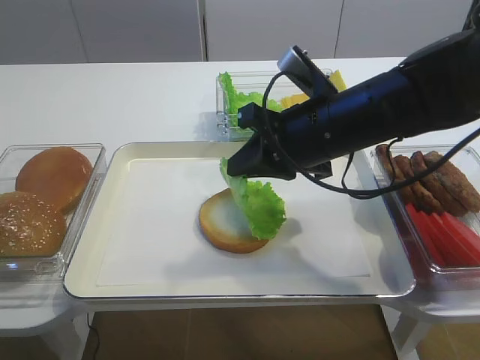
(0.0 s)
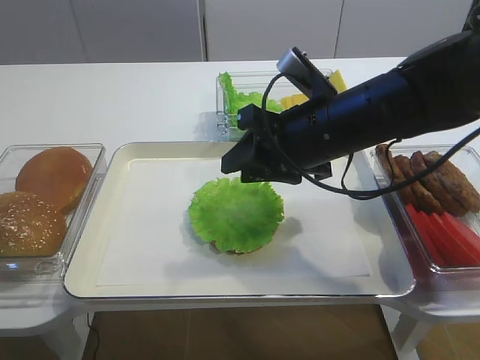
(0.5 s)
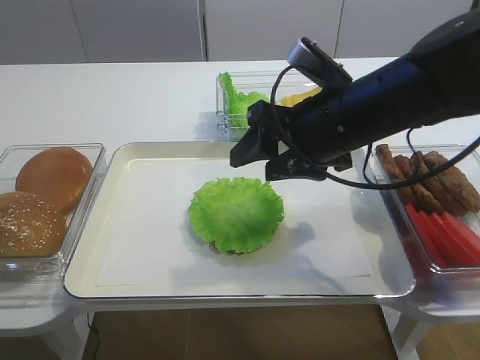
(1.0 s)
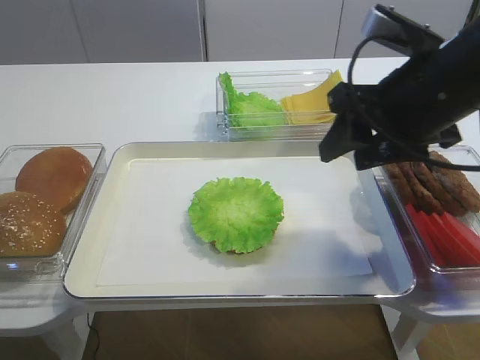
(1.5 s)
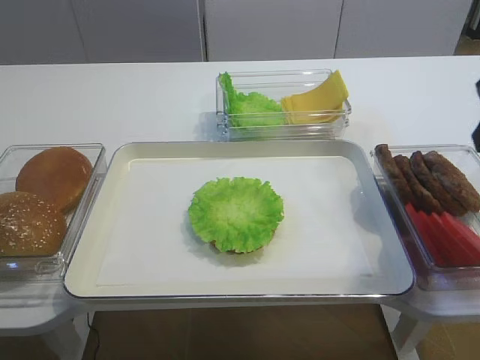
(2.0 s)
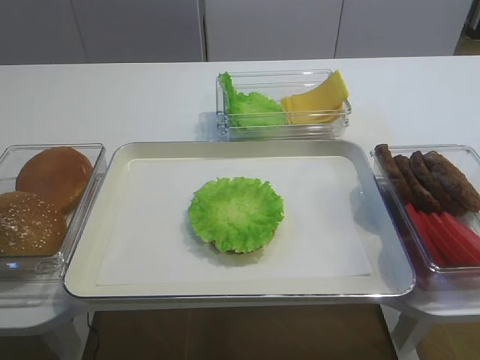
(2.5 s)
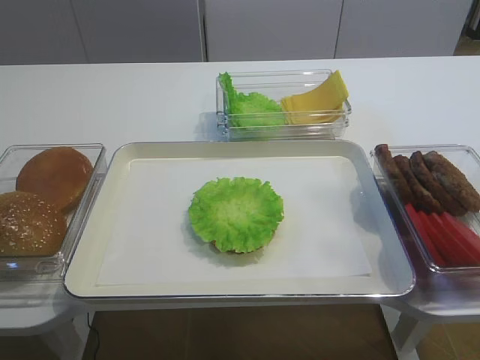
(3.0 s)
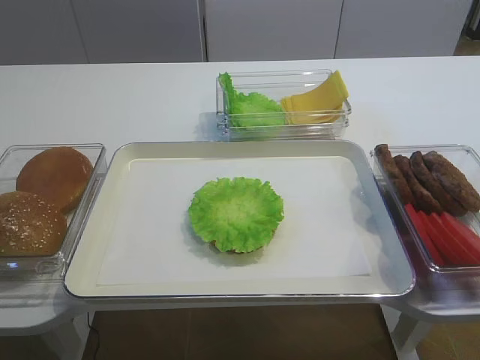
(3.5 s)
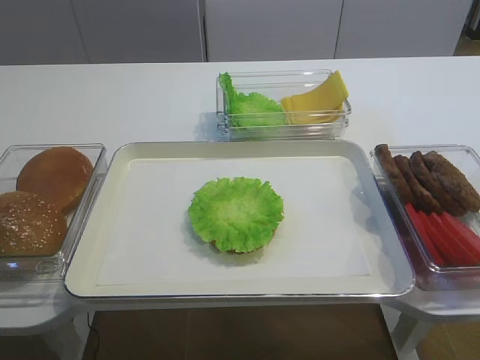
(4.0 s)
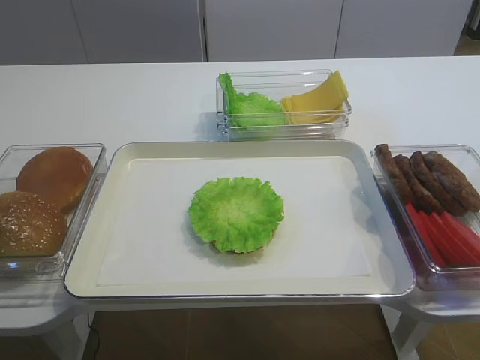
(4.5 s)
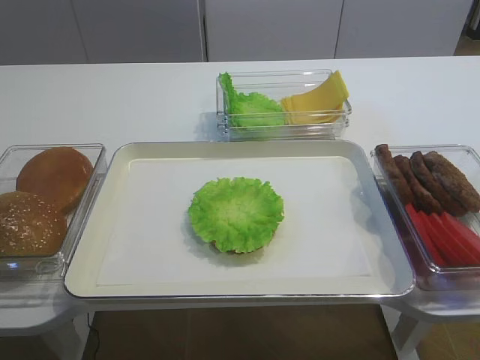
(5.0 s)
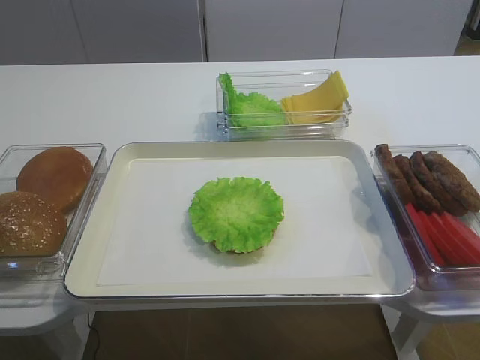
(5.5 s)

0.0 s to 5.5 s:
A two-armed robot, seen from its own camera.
0.0 to 2.0 s: The right gripper shifts roughly 20 cm to the right and upward, and opens.
2.0 to 3.5 s: The right gripper goes about 25 cm backward.

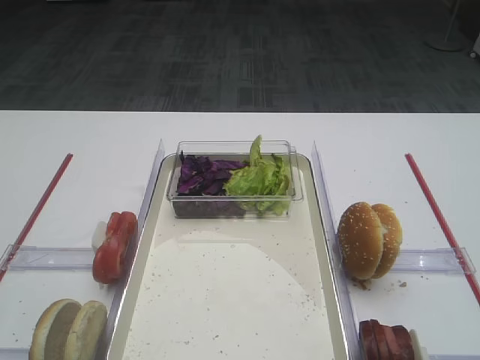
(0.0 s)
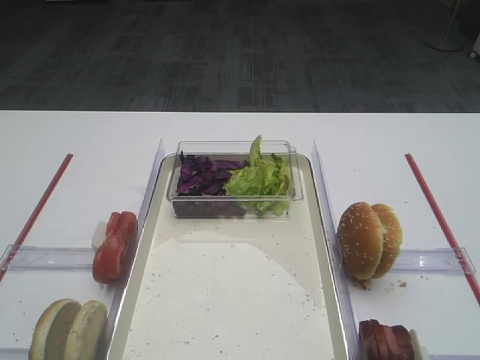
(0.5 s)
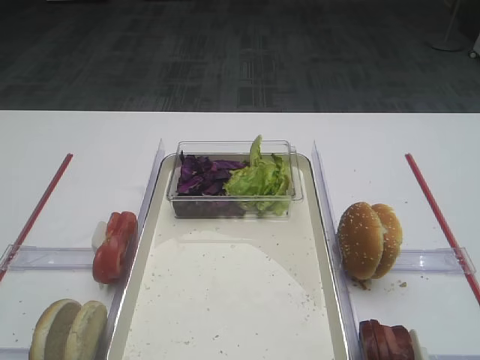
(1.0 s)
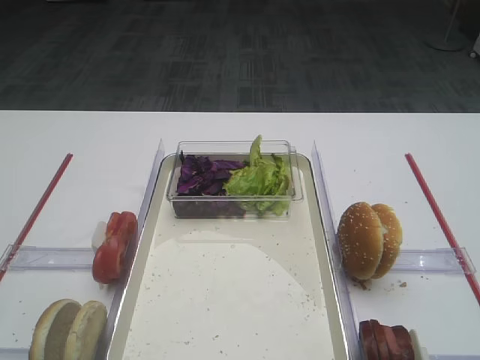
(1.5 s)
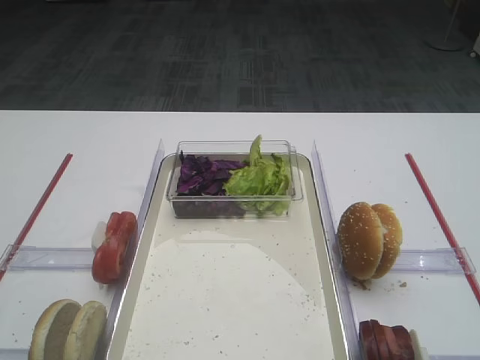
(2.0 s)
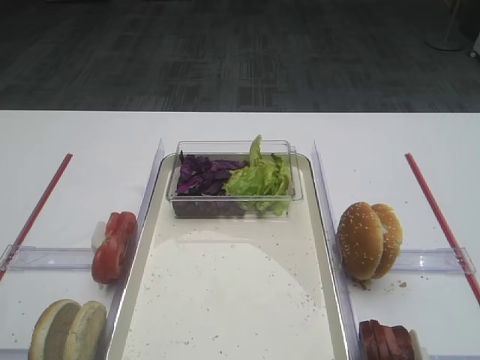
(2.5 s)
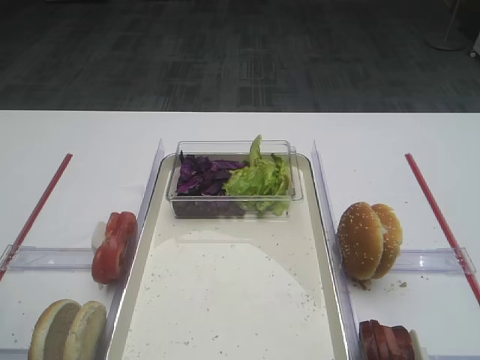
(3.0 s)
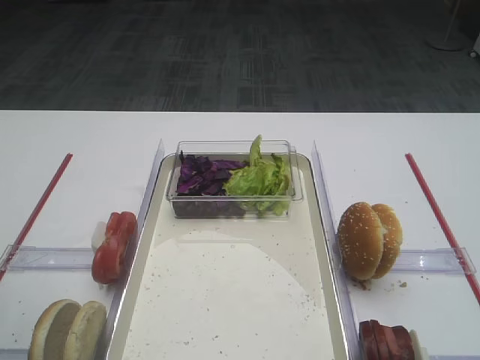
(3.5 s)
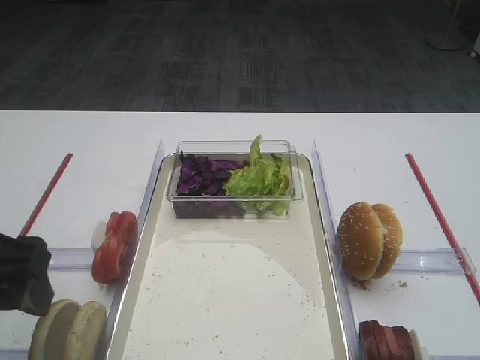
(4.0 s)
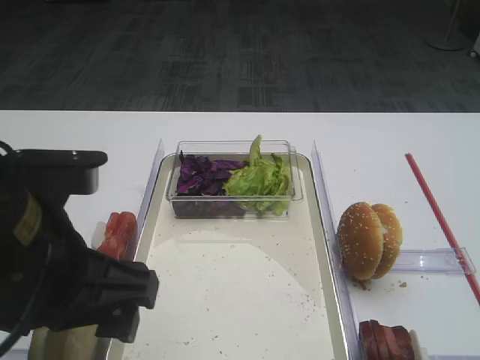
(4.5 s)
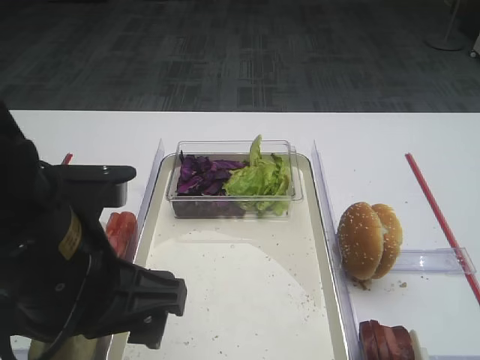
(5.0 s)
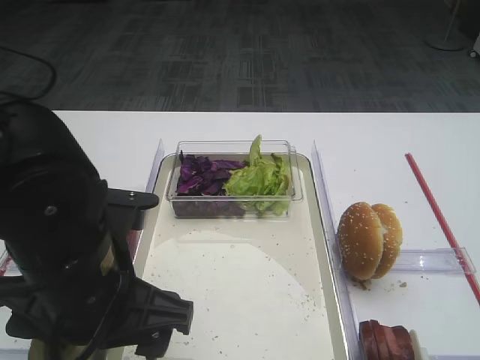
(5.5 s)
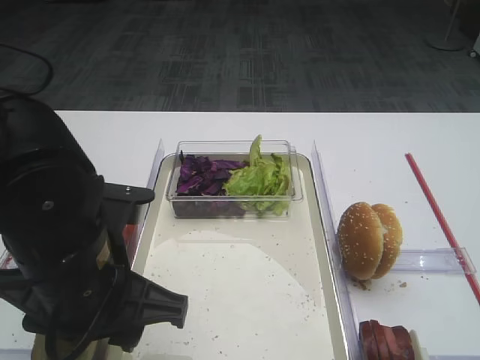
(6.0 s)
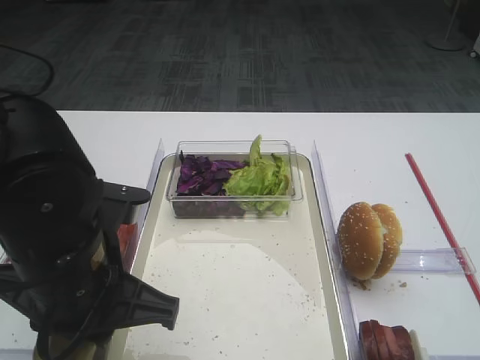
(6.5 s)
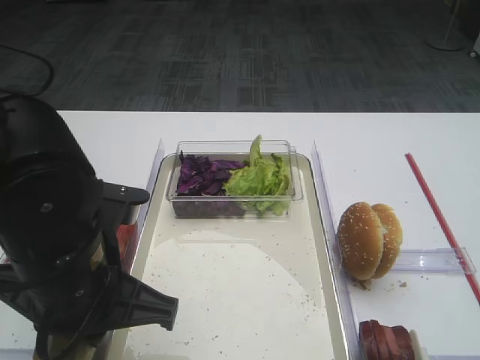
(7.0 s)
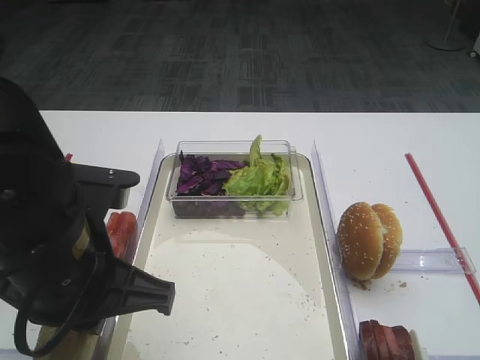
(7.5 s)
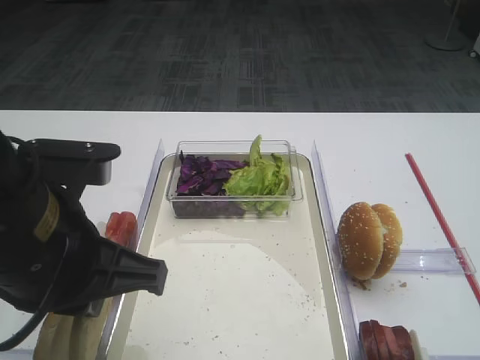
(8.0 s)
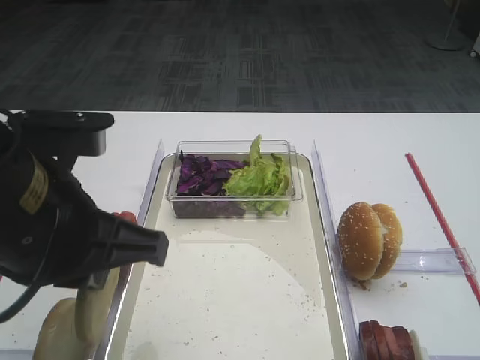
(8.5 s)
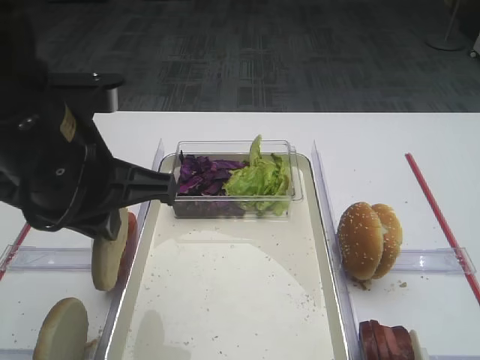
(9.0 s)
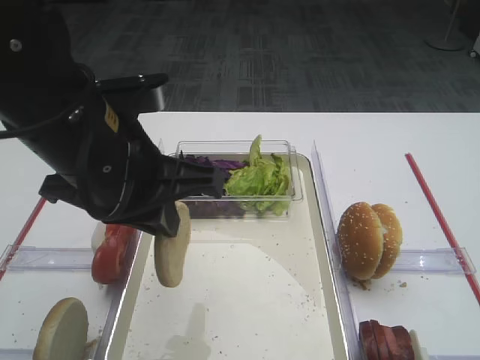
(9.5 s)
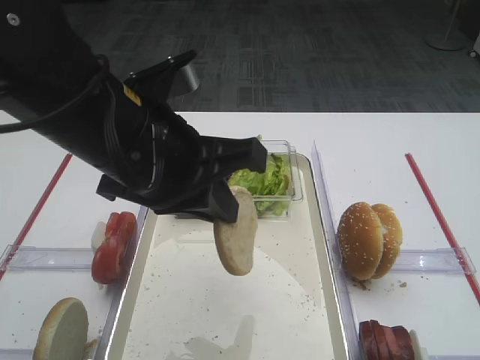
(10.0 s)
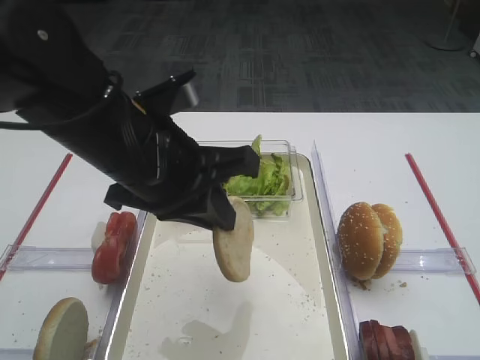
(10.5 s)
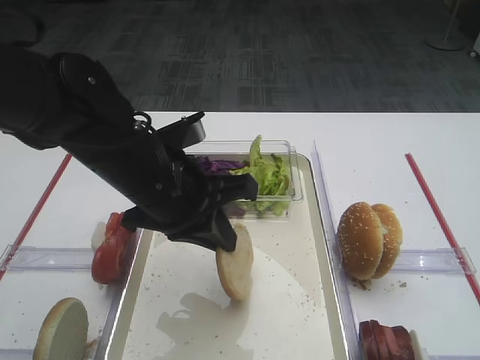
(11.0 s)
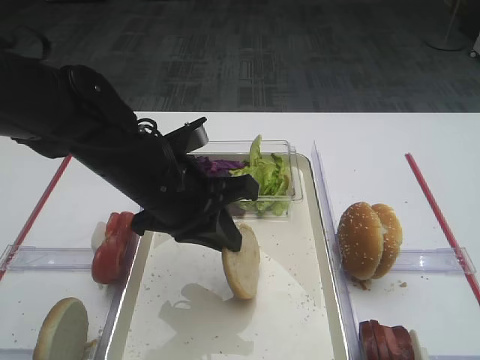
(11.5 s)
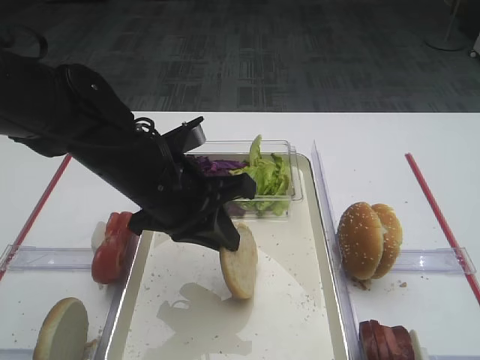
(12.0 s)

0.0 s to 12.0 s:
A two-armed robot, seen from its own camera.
Step, 0.0 to 8.5 s: Pick up the bread slice with the left gripper.
2.0 to 4.0 s: The left gripper heads forward and to the right, covering about 10 cm.
4.0 to 6.0 s: The left gripper goes approximately 10 cm to the right and downward, and closes.
6.0 to 8.0 s: The left gripper moves approximately 5 cm, and closes up.
8.0 to 10.0 s: The left gripper is displaced forward and to the right by some 10 cm.
10.0 to 12.0 s: The left gripper travels downward and forward by approximately 10 cm.

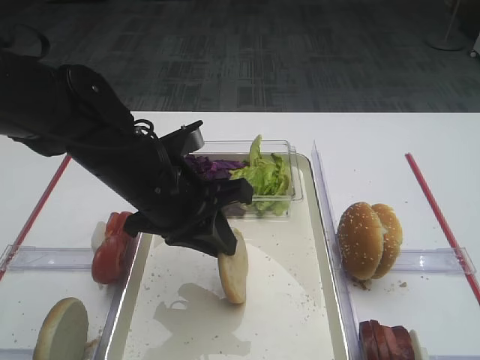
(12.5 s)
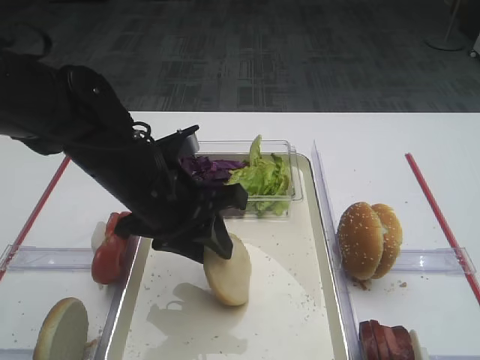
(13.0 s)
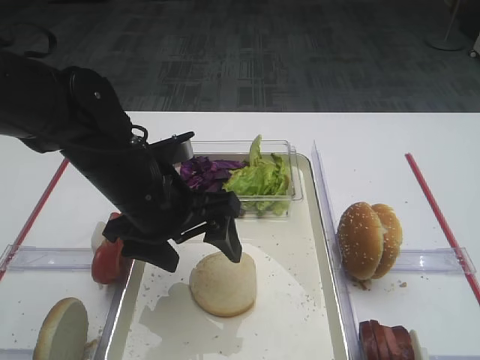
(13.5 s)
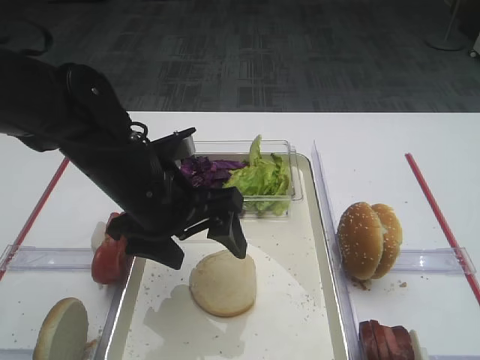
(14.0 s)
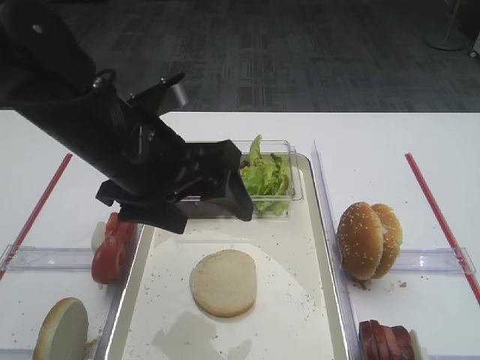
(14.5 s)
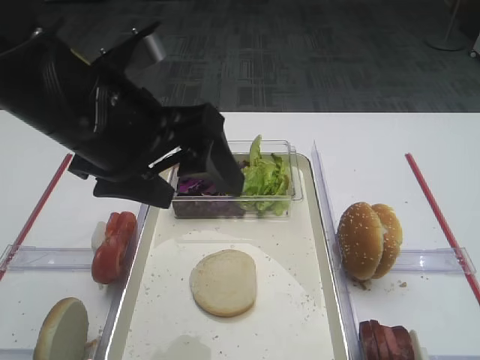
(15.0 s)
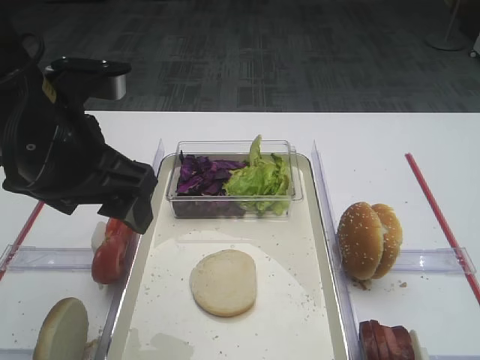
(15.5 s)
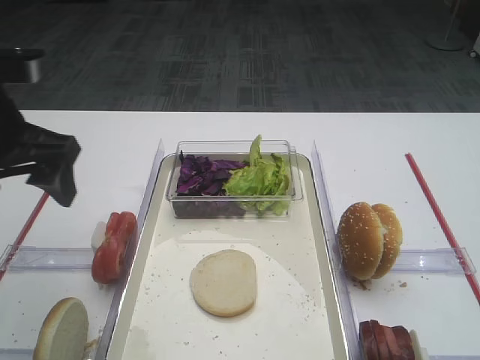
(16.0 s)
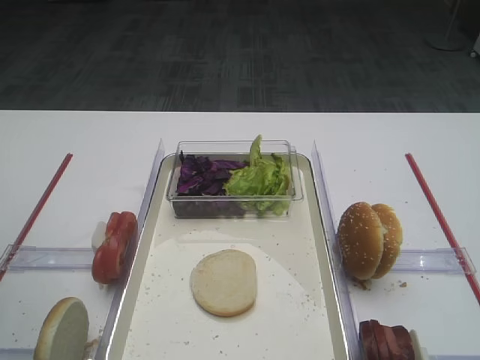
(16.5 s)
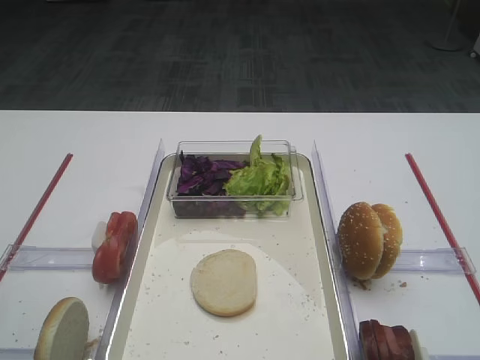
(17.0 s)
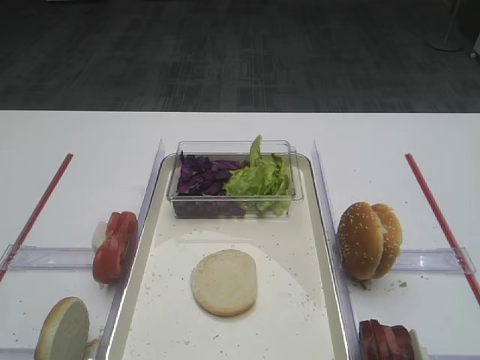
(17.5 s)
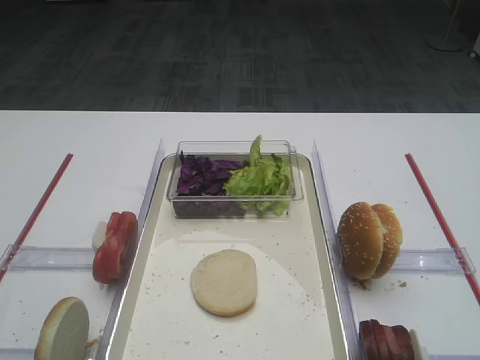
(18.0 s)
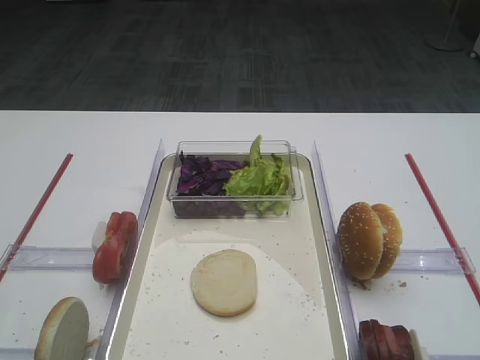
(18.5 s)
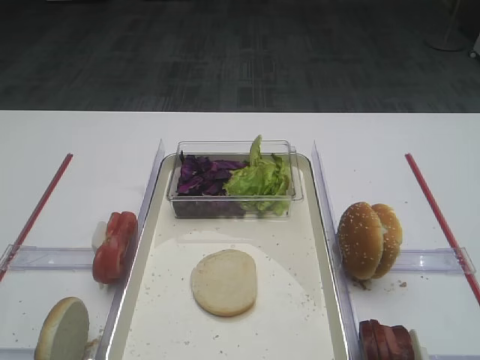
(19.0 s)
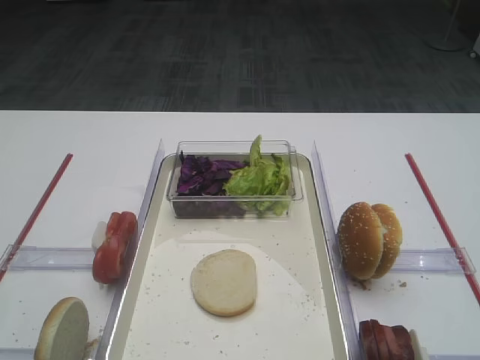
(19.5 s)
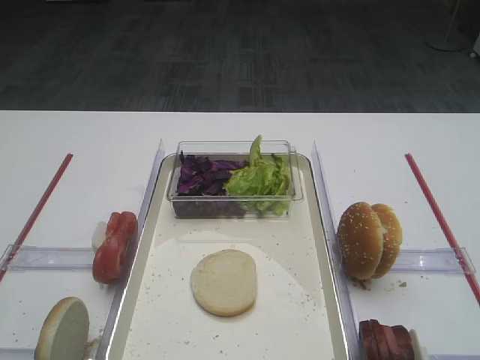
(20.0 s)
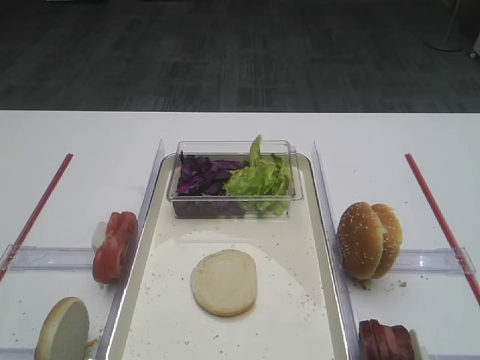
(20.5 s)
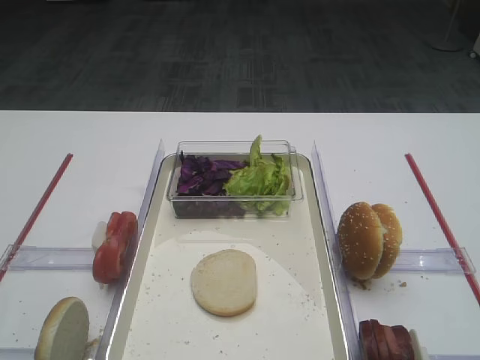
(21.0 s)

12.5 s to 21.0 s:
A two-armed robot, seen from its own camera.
12.5 to 14.5 s: The left gripper shifts roughly 5 cm upward, and opens its fingers.
14.5 to 16.5 s: The left gripper moves to the left, about 20 cm.
19.0 to 21.0 s: Both grippers stay put.
